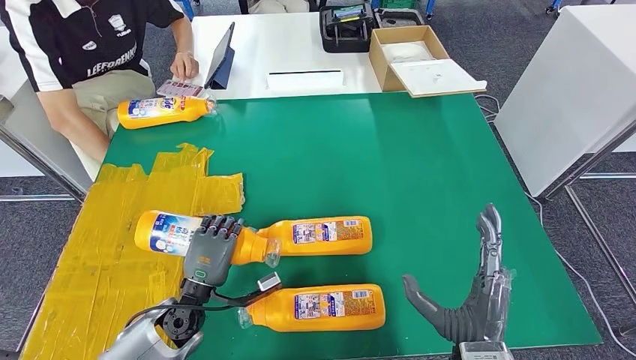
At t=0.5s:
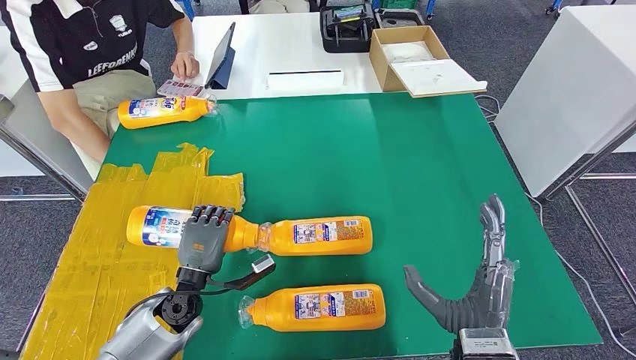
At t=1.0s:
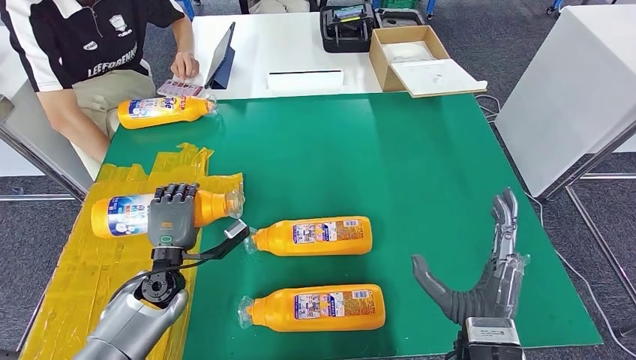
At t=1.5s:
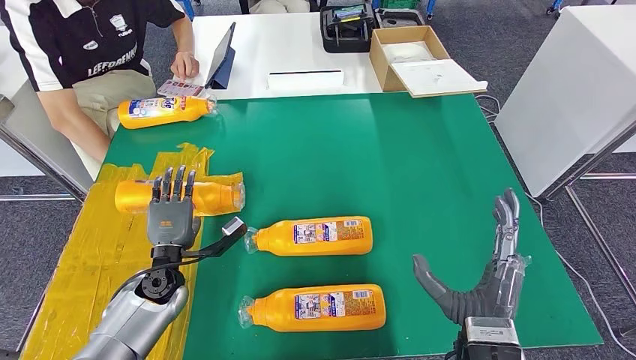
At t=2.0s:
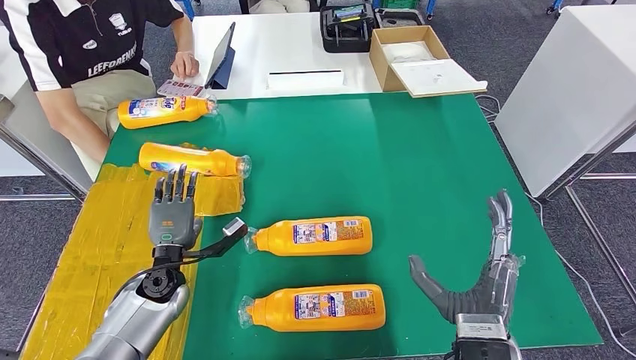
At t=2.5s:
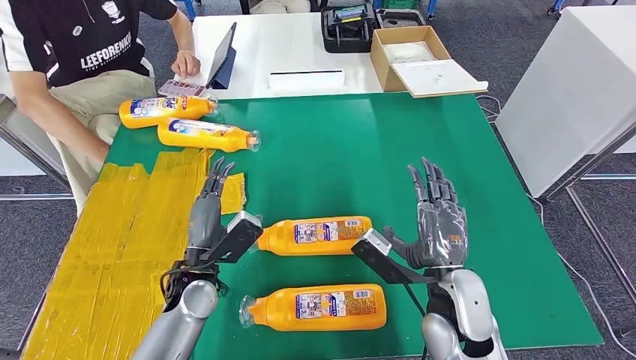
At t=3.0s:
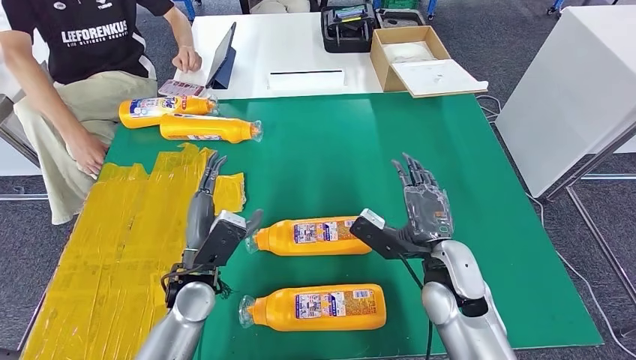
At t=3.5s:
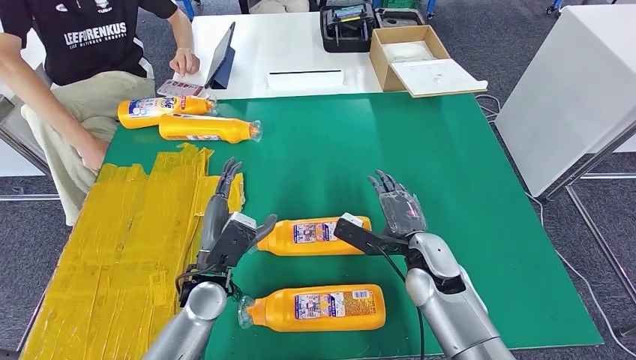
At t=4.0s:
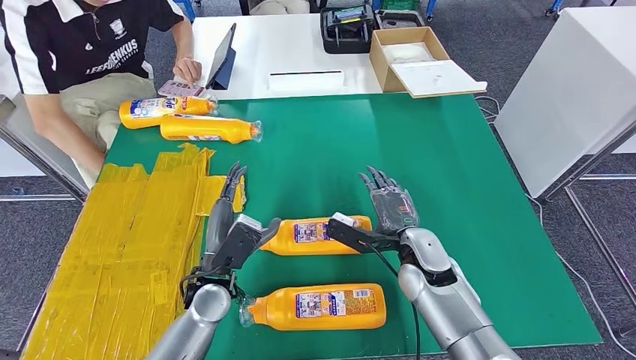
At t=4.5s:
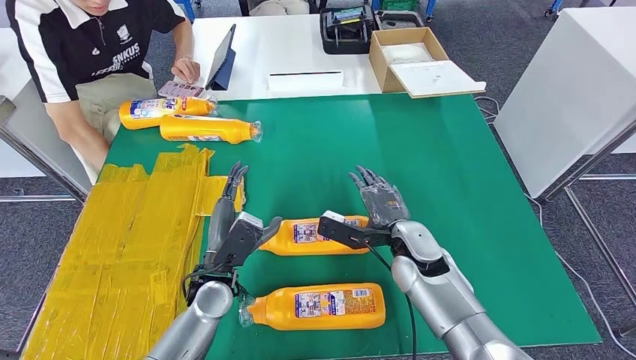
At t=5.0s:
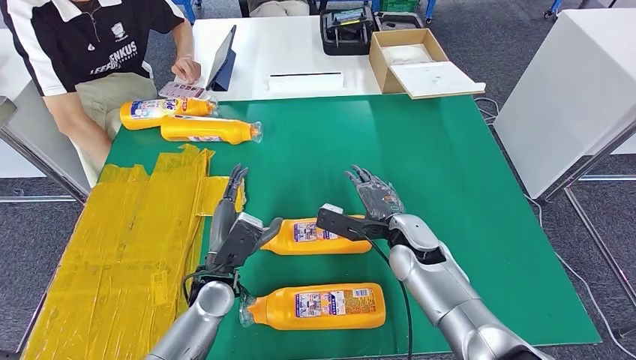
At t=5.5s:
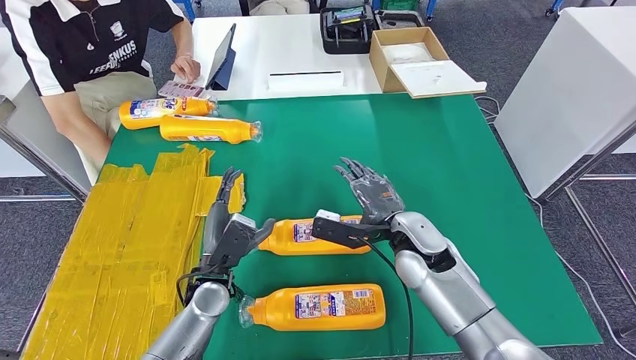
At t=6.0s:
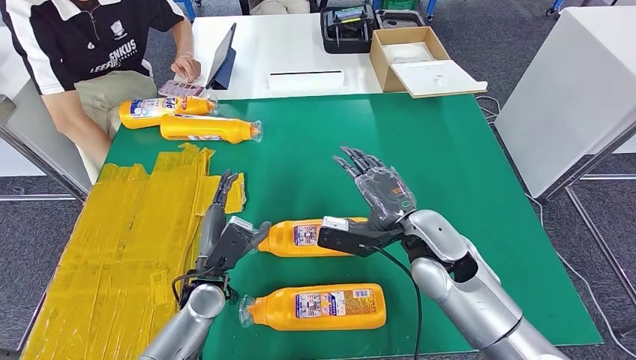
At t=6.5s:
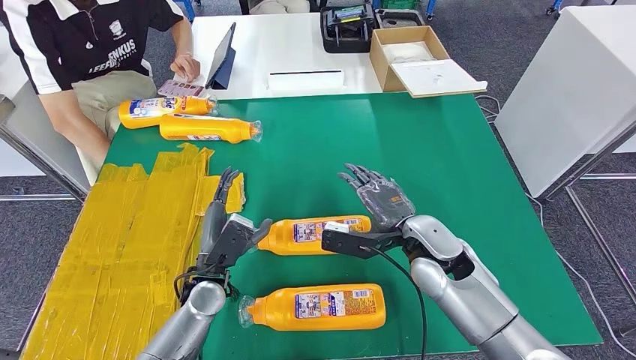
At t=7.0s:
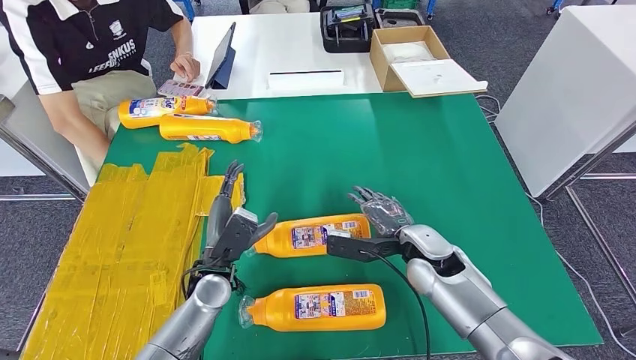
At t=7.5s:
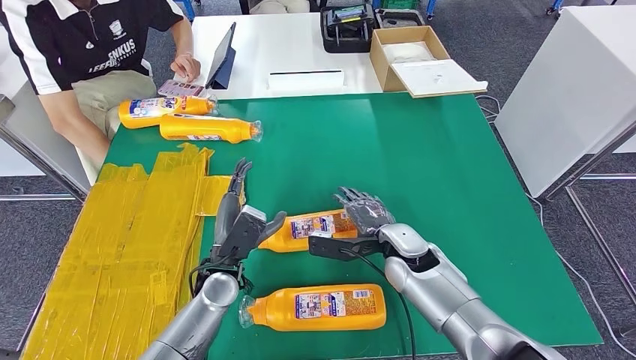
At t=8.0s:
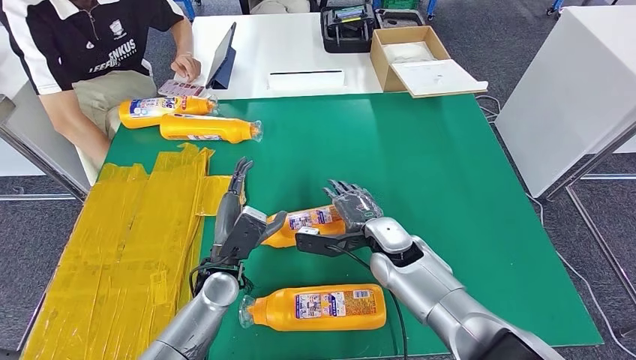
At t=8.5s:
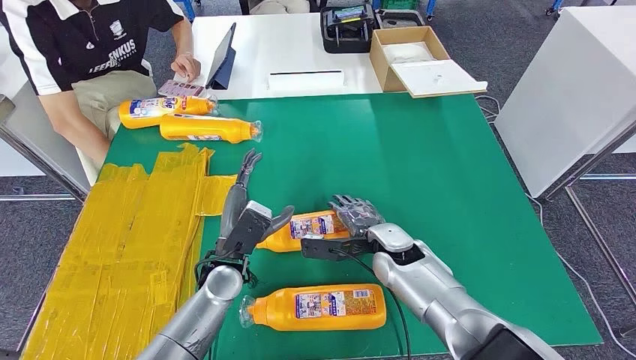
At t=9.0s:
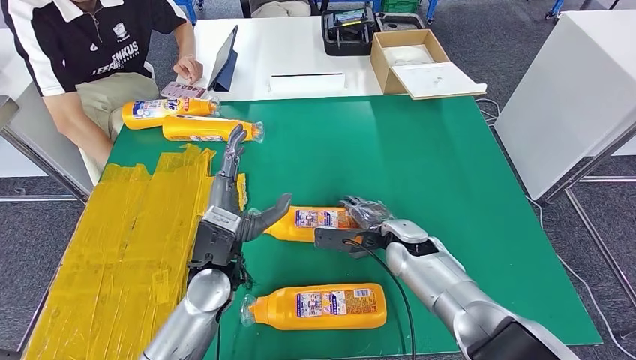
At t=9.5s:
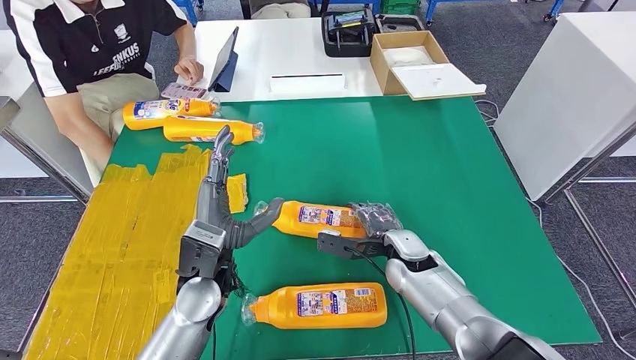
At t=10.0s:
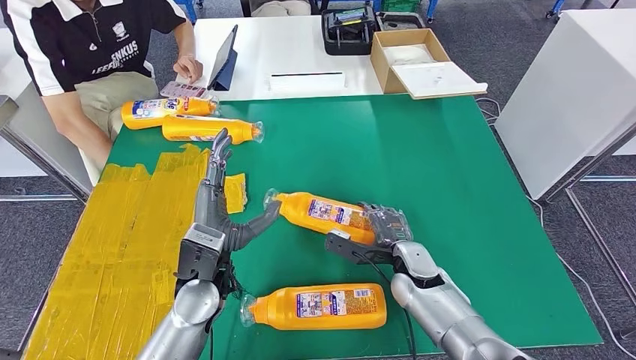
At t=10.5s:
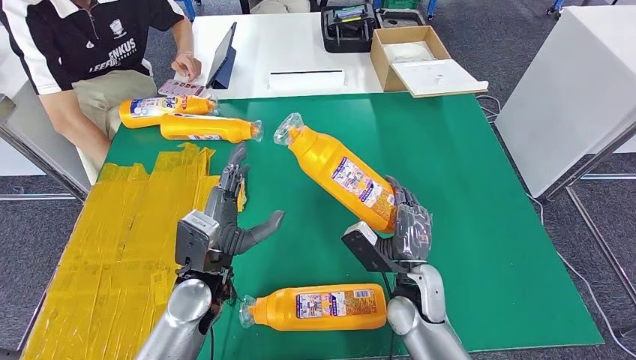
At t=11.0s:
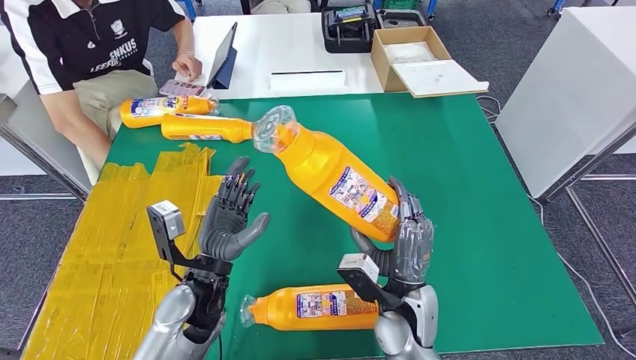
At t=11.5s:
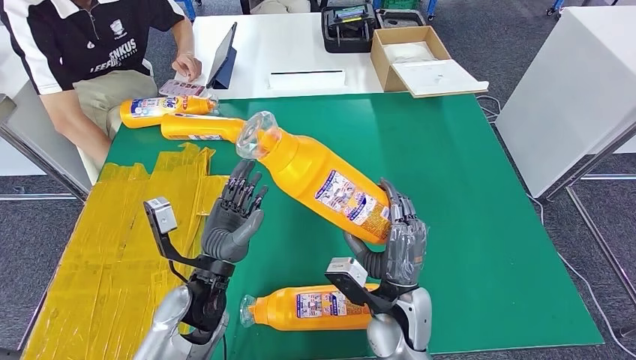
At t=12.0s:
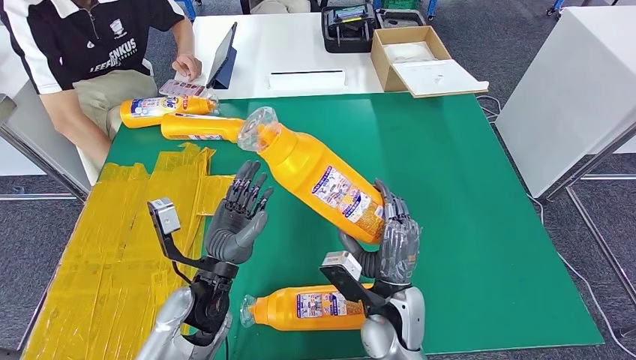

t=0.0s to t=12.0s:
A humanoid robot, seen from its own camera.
Step, t=0.0s to t=2.5s: Flip the fast-moving consumer goods bottle to the front side.
t=0.0s to t=2.0s: The left hand moves forward and to the left, approximately 5 cm.
t=4.0s to t=6.0s: The right hand travels upward by roughly 10 cm.
t=6.0s to t=8.0s: The right hand travels downward by approximately 5 cm.
t=8.0s to t=10.0s: The right hand shifts roughly 5 cm to the right and downward. The left hand moves upward, roughly 5 cm.

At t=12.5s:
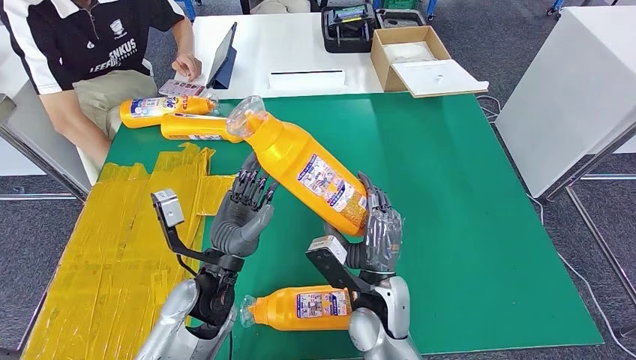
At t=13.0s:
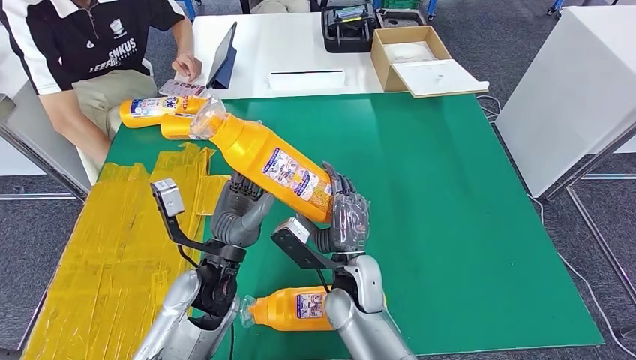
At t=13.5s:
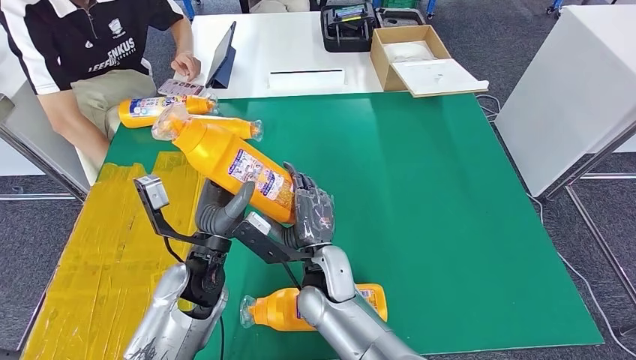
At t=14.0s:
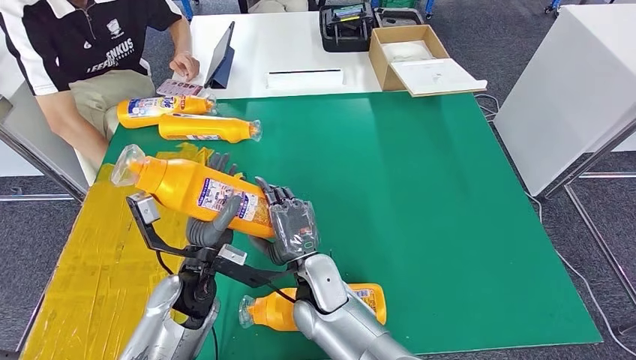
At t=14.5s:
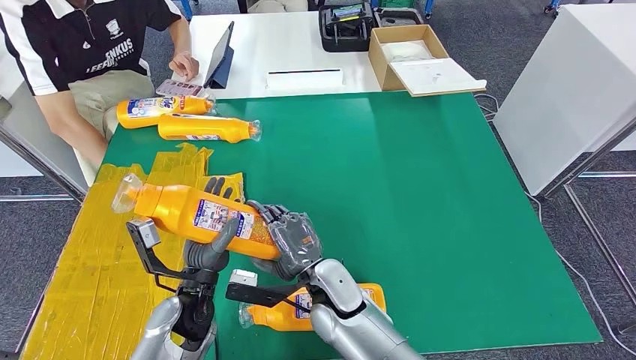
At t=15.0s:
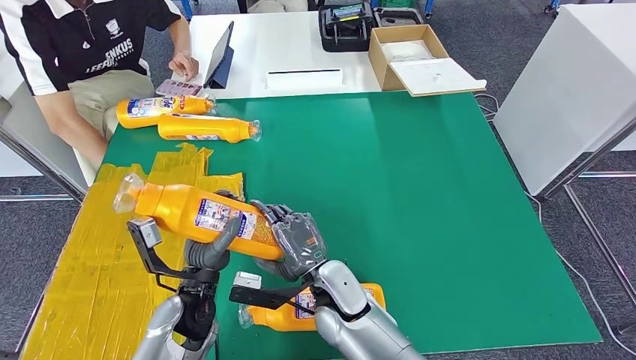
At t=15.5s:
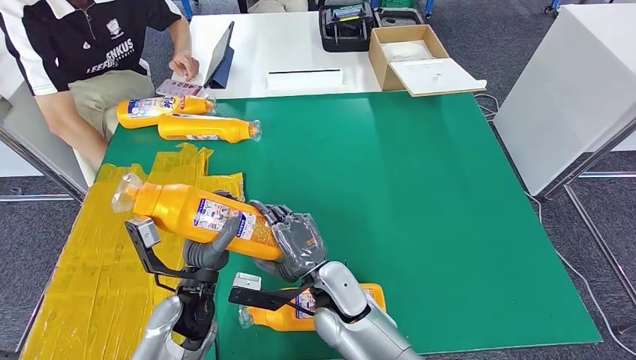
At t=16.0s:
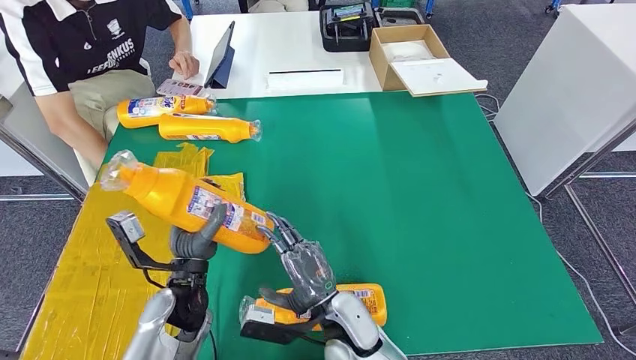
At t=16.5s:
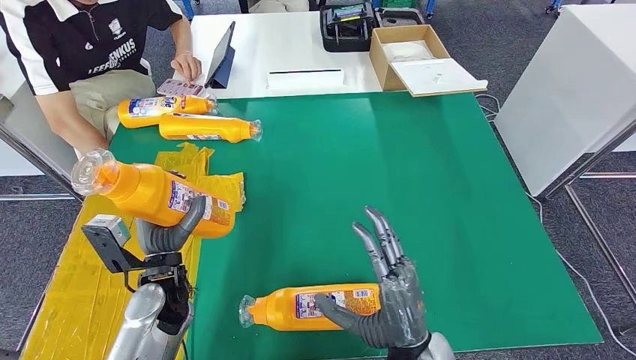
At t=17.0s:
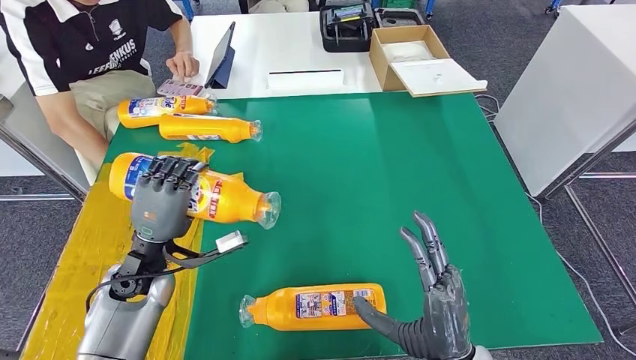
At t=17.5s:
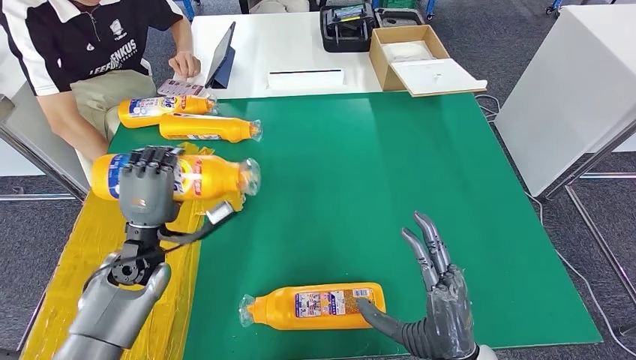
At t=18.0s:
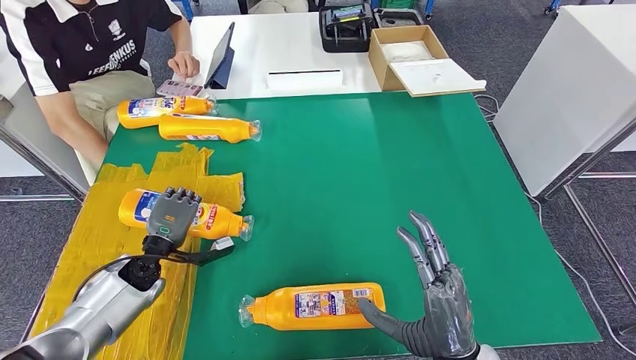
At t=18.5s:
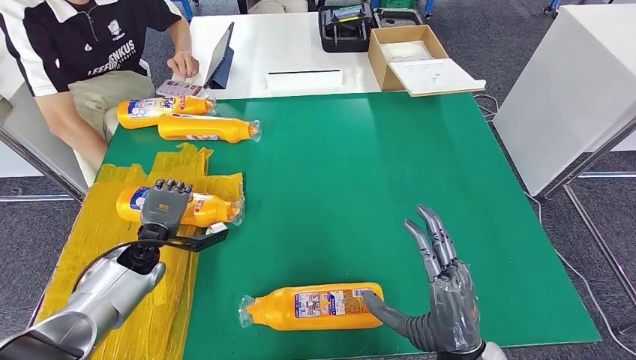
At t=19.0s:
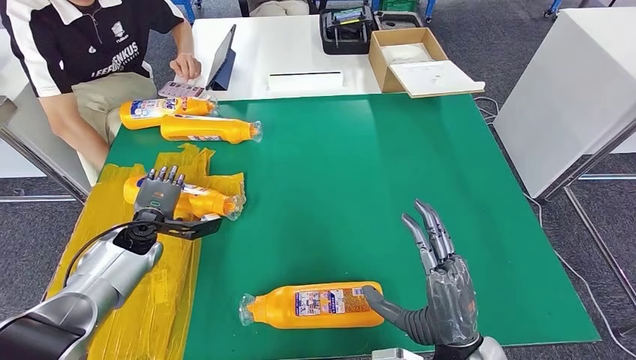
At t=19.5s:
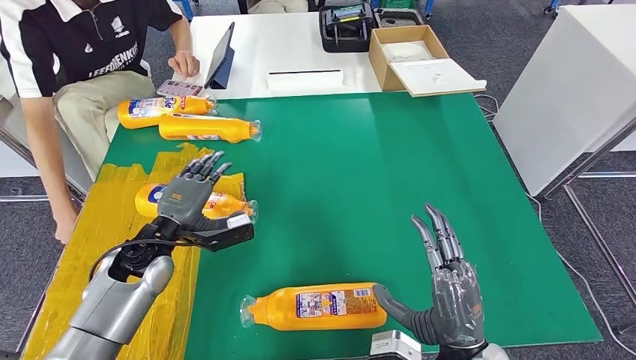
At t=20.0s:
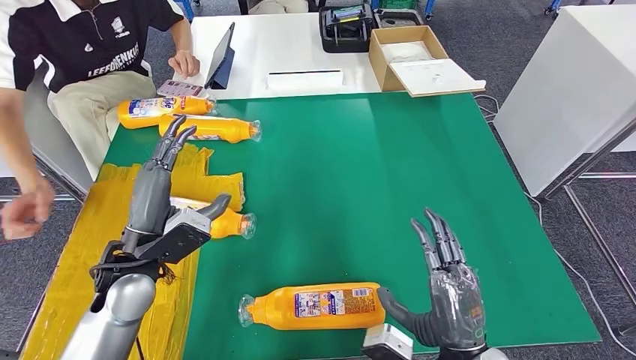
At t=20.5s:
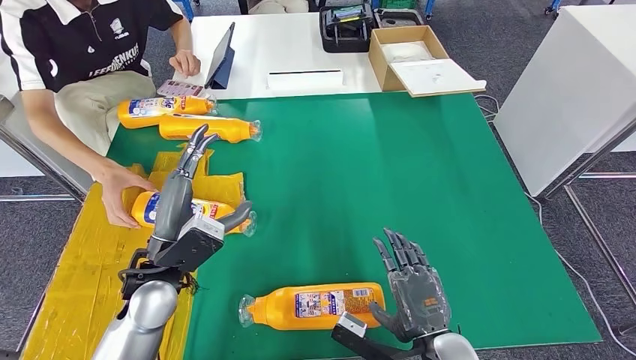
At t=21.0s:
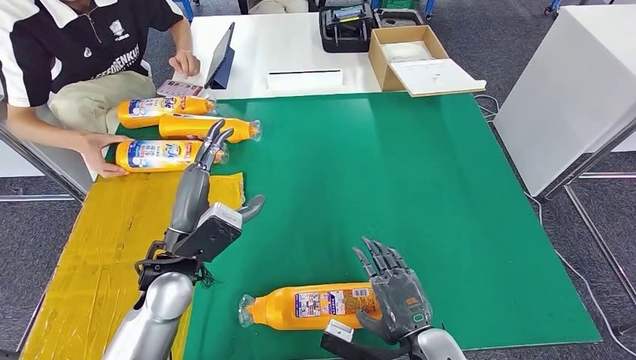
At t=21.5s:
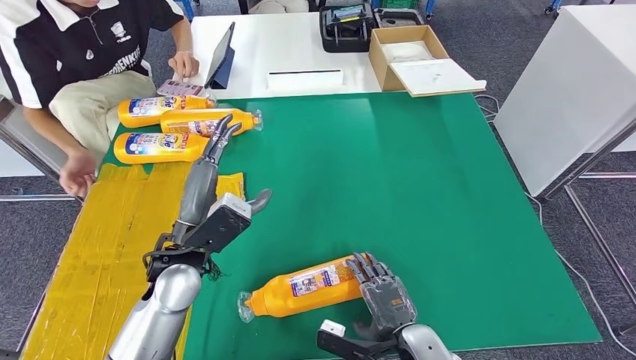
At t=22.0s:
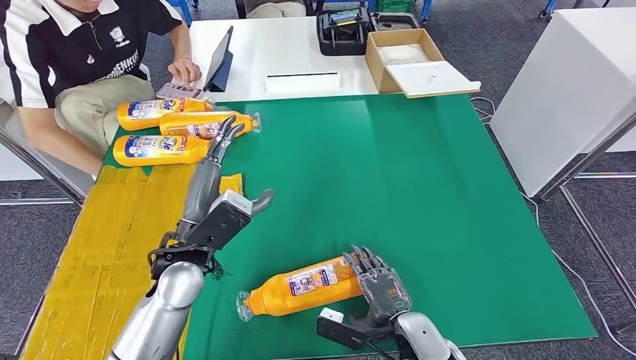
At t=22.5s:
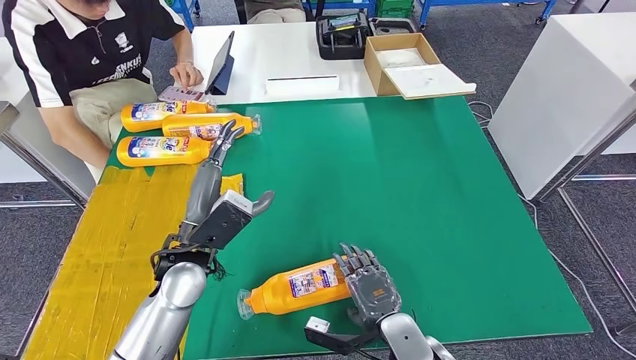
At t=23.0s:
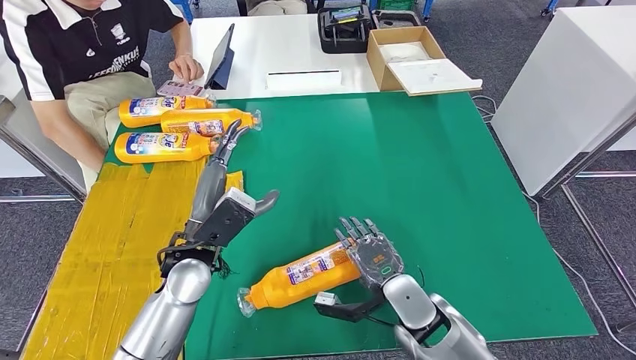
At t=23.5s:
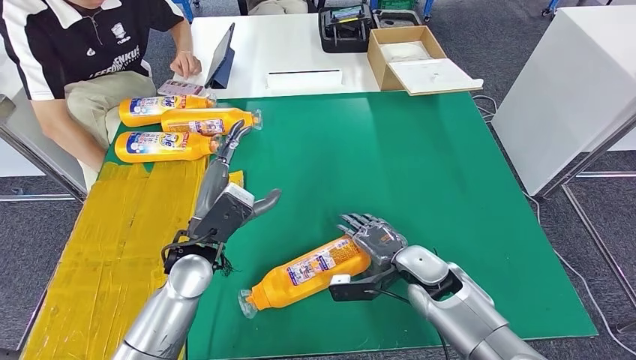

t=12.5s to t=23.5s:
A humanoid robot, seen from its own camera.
Step, t=13.0s to t=18.0s: Flip the fast-moving consumer goods bottle to the front side.
t=14.5s to t=16.0s: The hands stay close to where they were, moving slightly.
t=16.0s to t=18.0s: The left hand travels to the left and forward by approximately 15 cm, while the right hand heads to the right, upward and backward, covering roughly 20 cm.
t=18.0s to t=20.0s: The left hand goes roughly 15 cm upward, to the right and backward.
